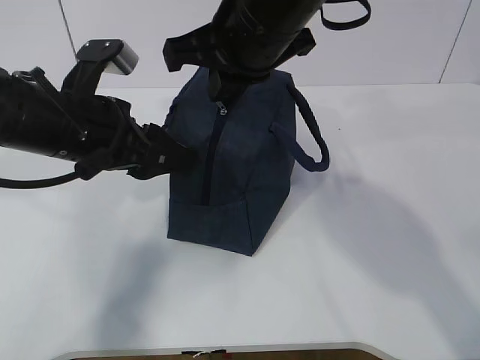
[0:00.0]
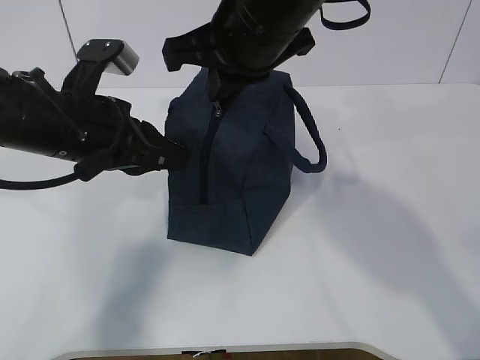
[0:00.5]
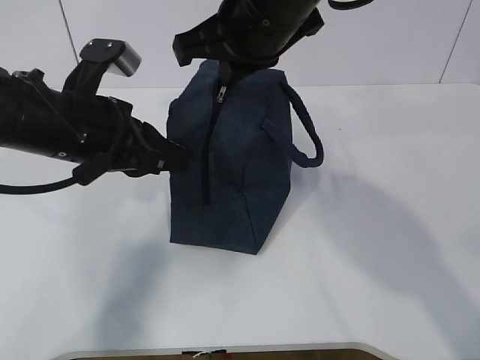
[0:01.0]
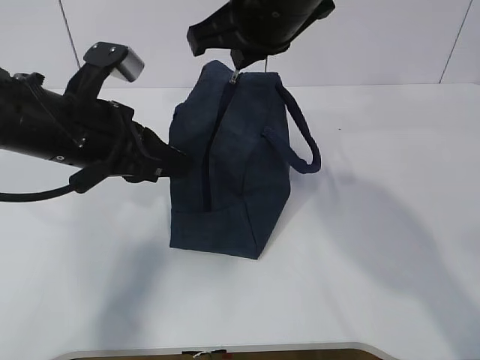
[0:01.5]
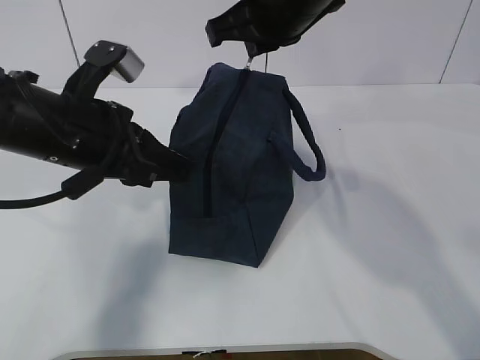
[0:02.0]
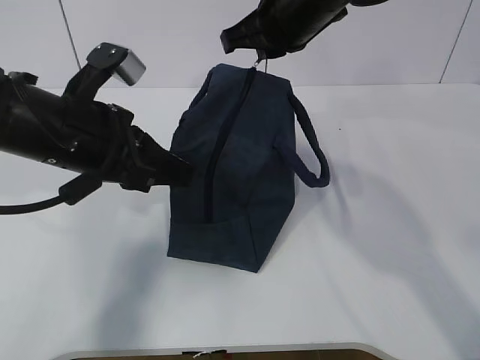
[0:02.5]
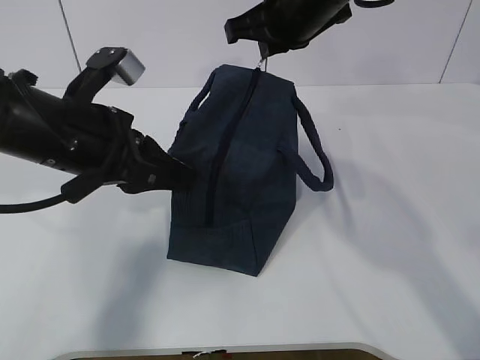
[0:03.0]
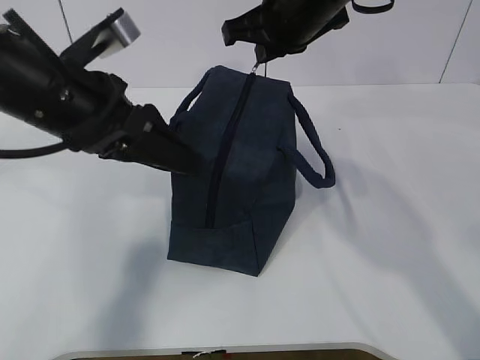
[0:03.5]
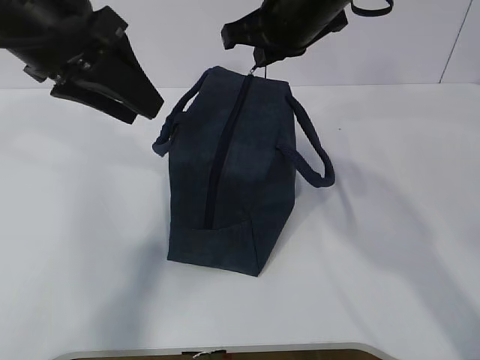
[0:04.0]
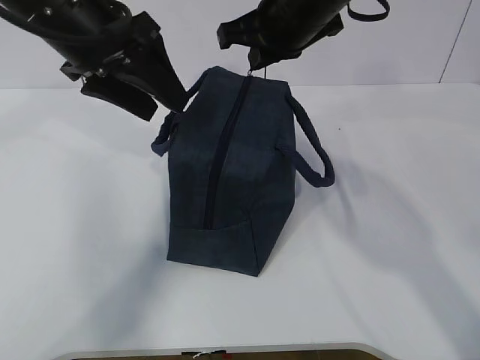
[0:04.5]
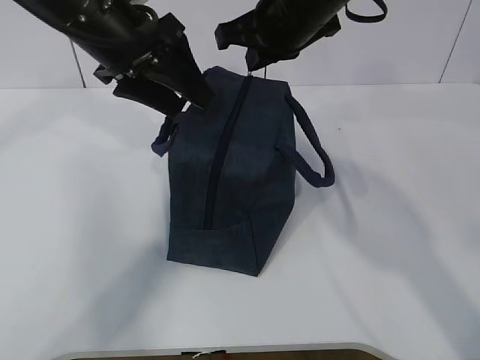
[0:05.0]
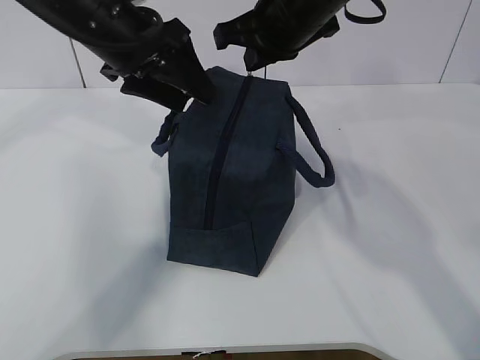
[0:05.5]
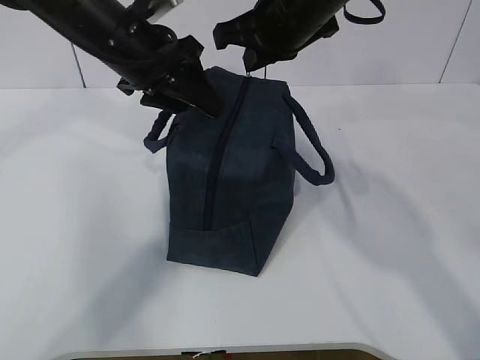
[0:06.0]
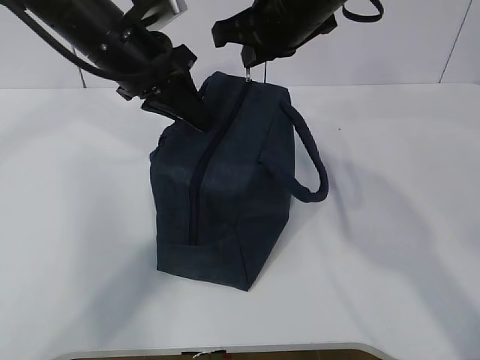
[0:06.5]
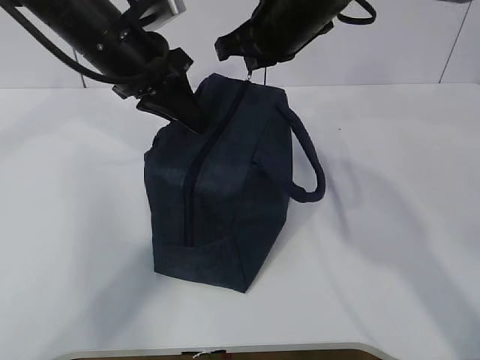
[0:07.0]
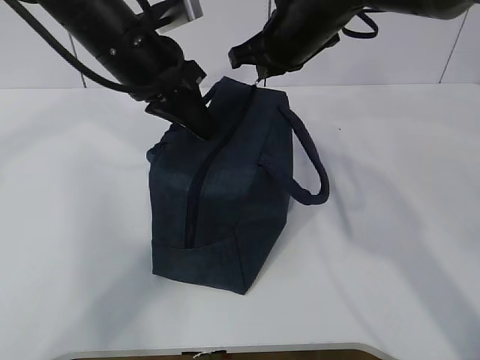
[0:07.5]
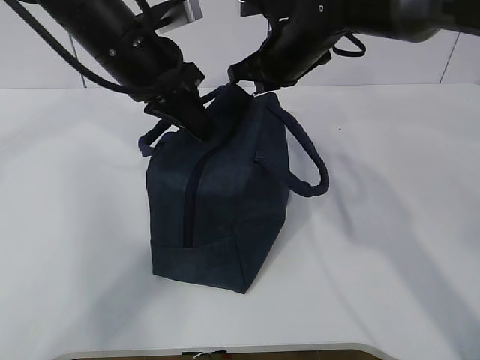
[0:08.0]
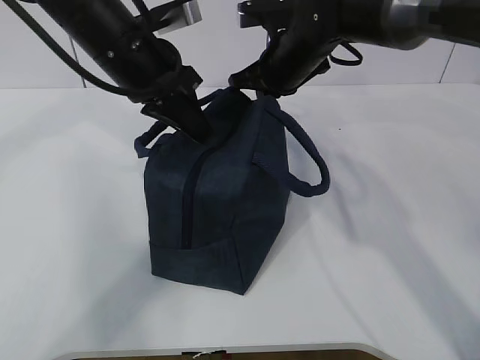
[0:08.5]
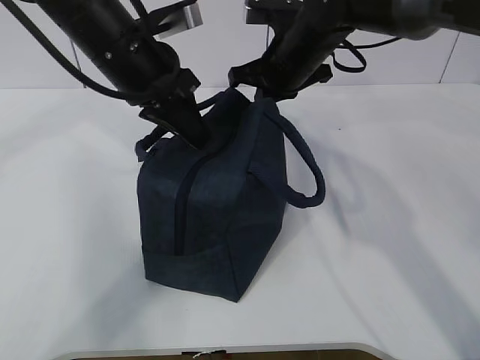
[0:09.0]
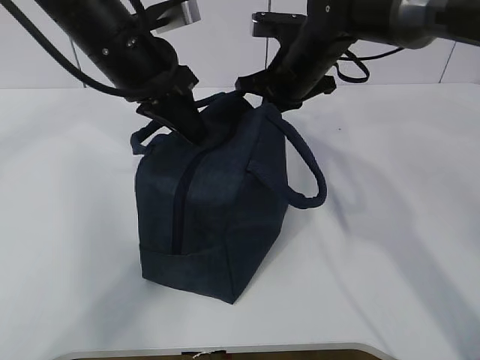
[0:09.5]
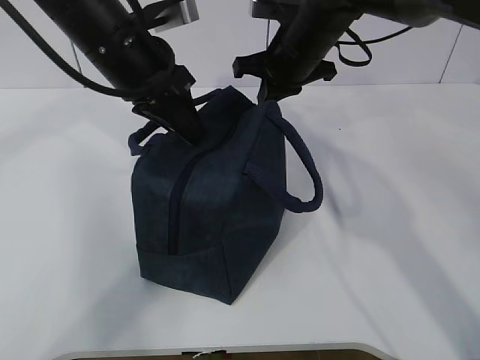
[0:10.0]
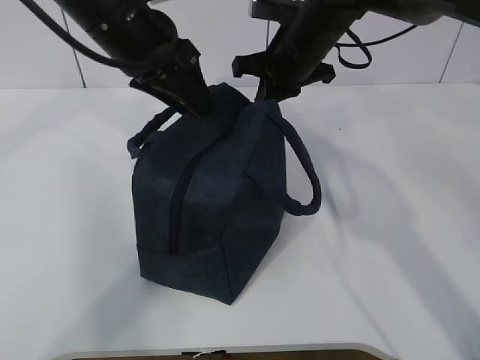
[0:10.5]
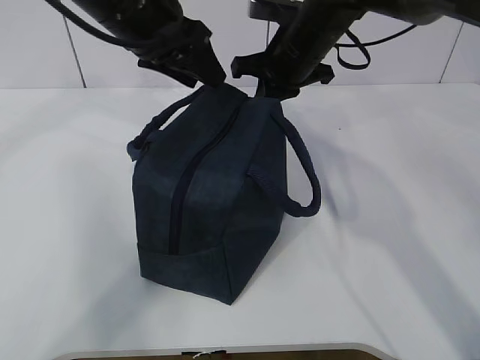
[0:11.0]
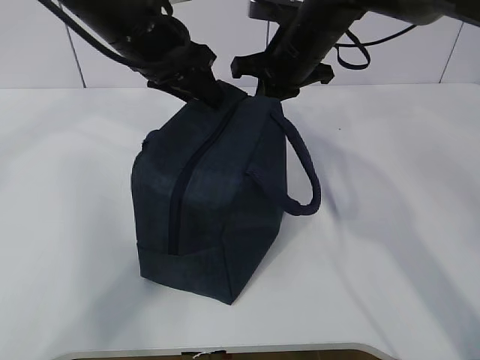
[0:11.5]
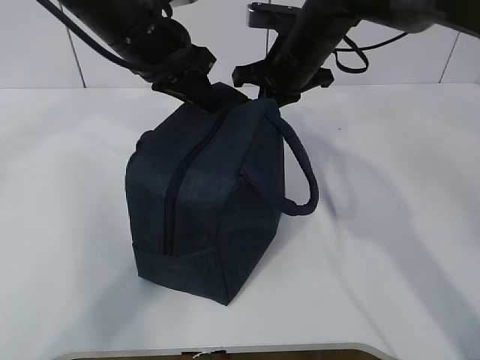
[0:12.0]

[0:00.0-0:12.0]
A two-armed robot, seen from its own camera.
0:00.0 to 0:02.0: The right gripper shifts by roughly 5 cm, while the left gripper closes.
0:02.0 to 0:04.0: The left gripper goes about 10 cm upward, and opens.
0:04.0 to 0:06.0: The left gripper travels forward and downward by roughly 10 cm.
0:06.0 to 0:08.0: The right gripper is displaced downward and forward by about 10 cm. The left gripper closes its fingers.
0:08.0 to 0:10.0: The grippers stay close to where they were, moving slightly.
0:10.0 to 0:12.0: The left gripper opens and closes again.

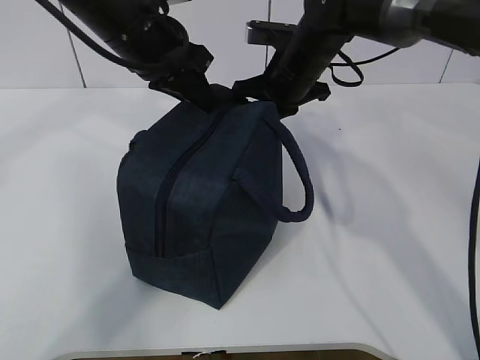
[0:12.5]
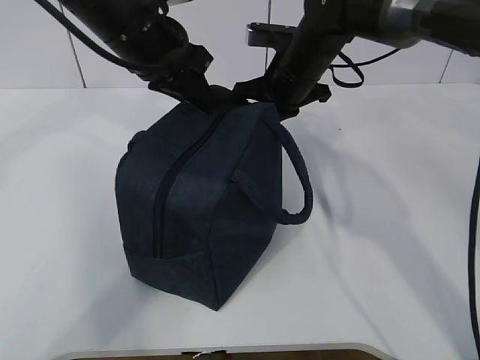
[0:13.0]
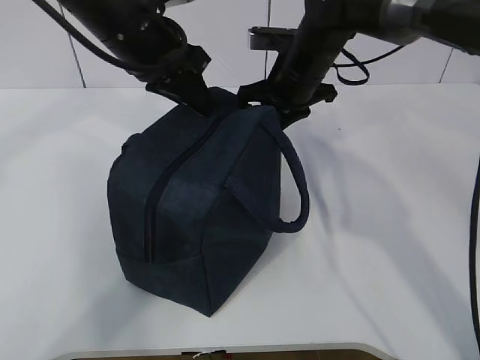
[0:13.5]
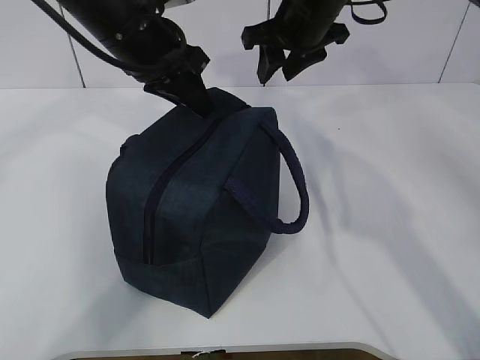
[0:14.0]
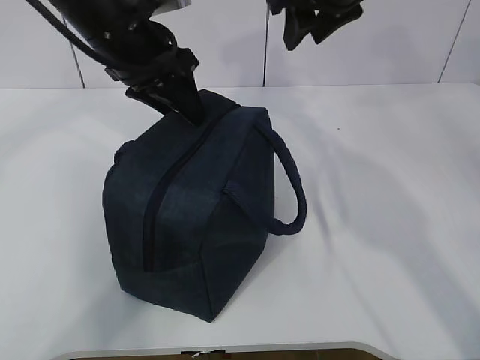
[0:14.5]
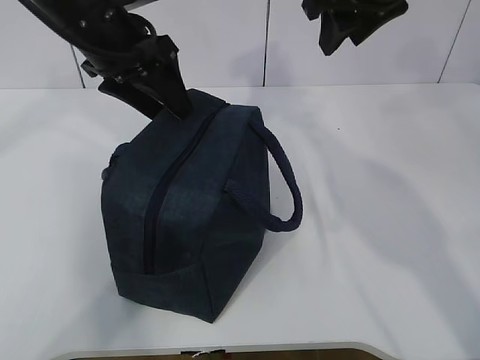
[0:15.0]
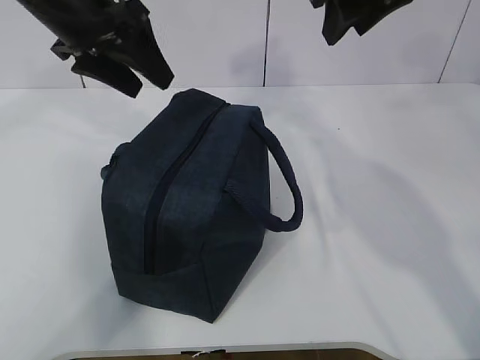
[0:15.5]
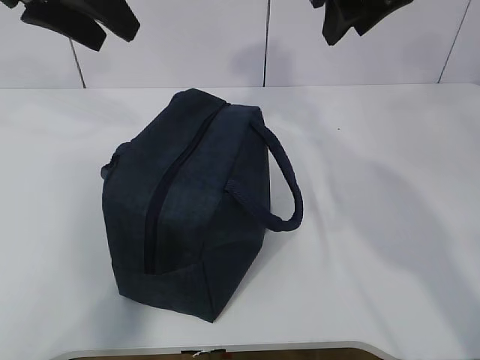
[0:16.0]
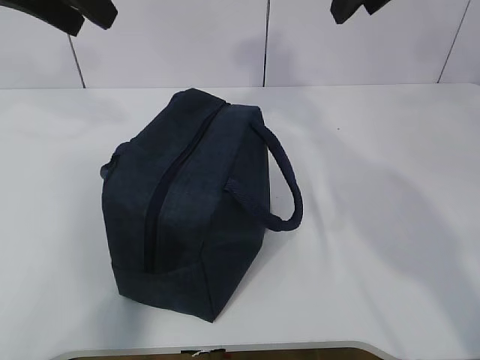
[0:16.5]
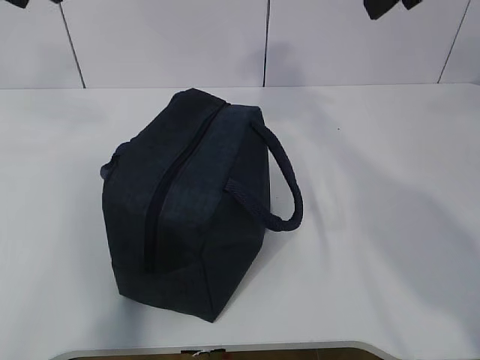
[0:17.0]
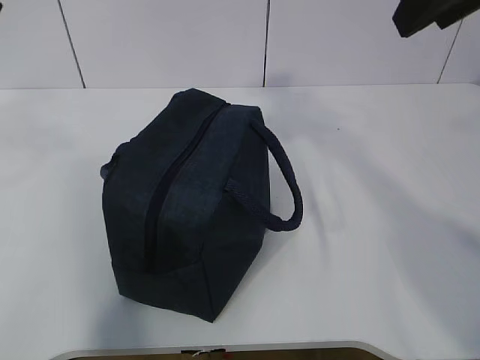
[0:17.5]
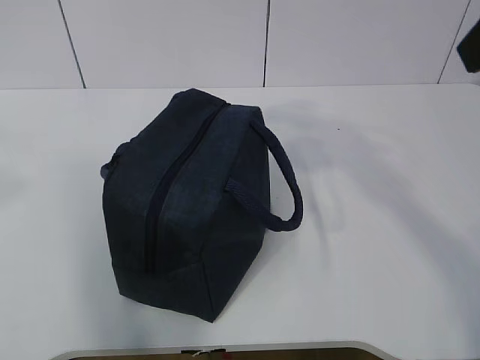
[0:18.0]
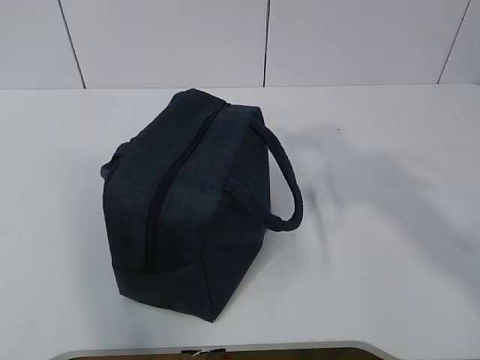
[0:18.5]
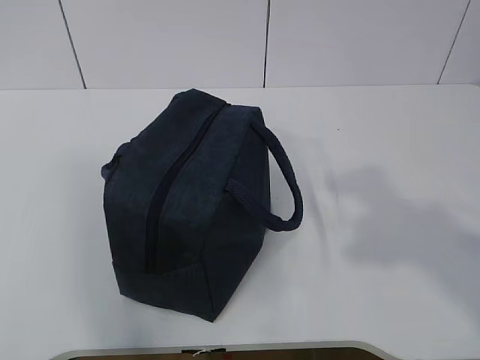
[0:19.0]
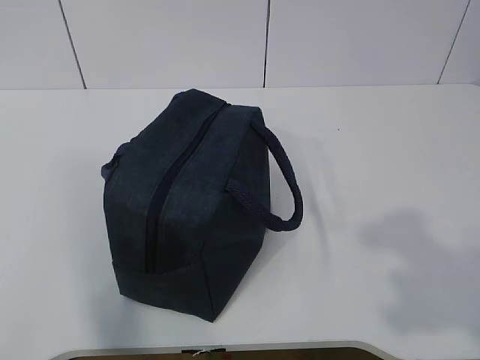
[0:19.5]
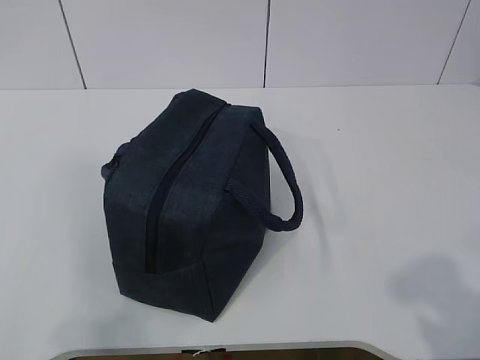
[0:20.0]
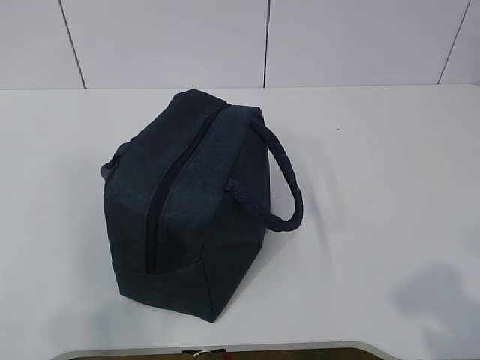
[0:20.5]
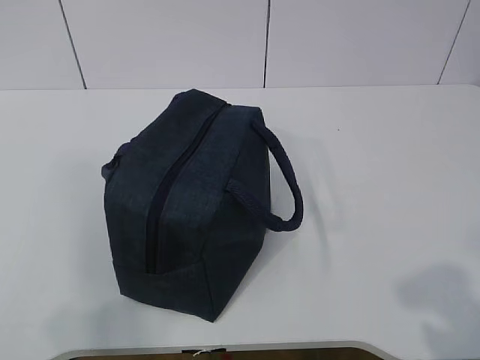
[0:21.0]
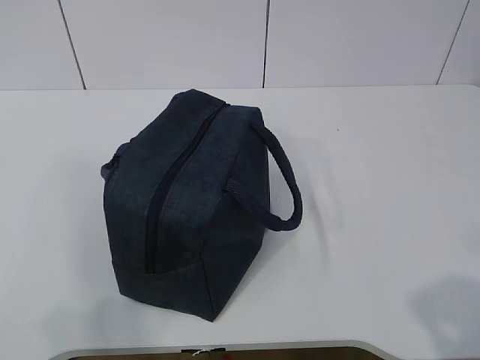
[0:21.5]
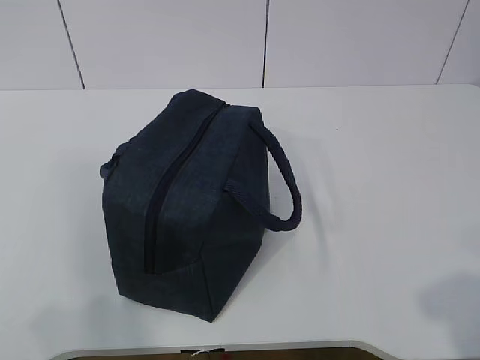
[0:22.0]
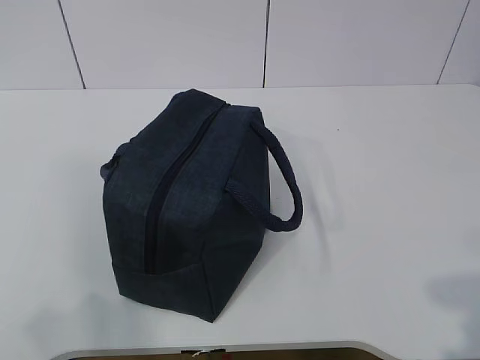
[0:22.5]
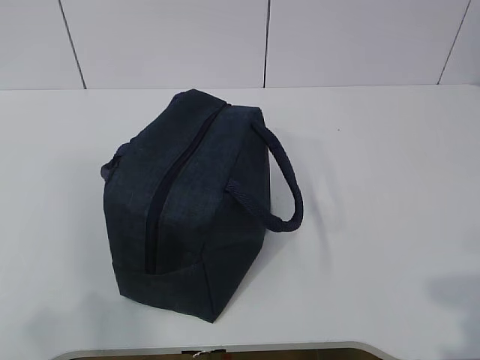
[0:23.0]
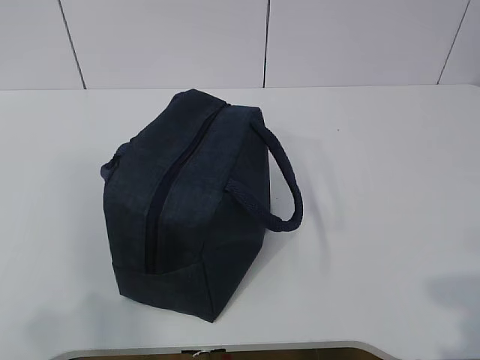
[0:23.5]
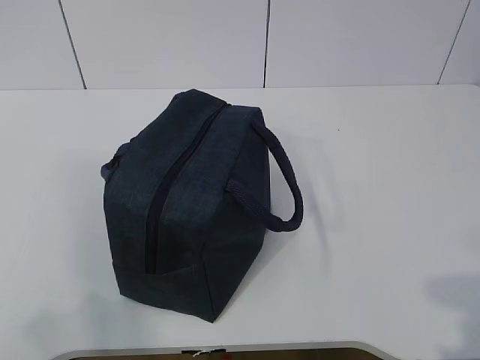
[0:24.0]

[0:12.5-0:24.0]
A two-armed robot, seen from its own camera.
0:12.5 to 0:14.5: The right gripper shifts about 15 cm upward, and opens up. The left gripper opens its fingers.
0:14.5 to 0:16.5: The left gripper shifts approximately 15 cm upward and to the left. Meanwhile the right gripper shifts approximately 5 cm backward.
0:16.5 to 0:18.5: The two grippers go some 25 cm backward.
0:18.5 to 0:20.0: The left gripper goes roughly 15 cm downward and backward, while the right gripper shifts roughly 20 cm backward and downward.
0:20.0 to 0:22.0: The grippers stay close to where they were, moving slightly.
0:22.0 to 0:24.0: The grippers make only small movements.

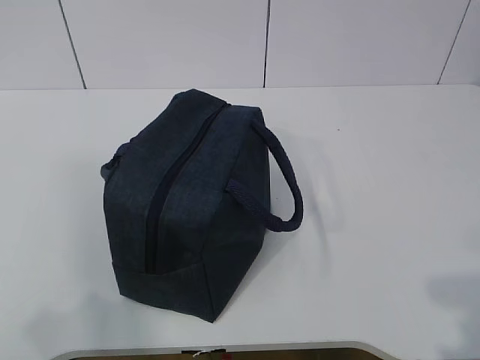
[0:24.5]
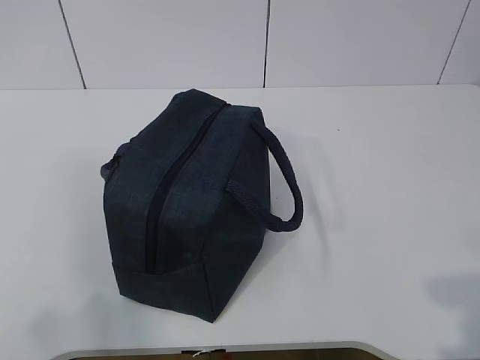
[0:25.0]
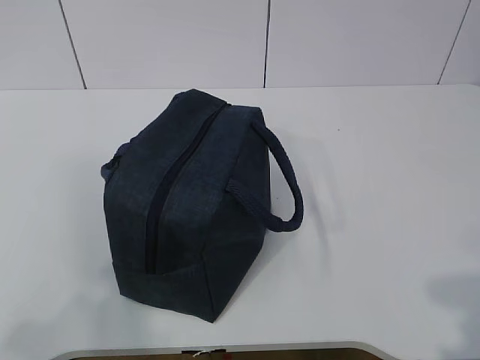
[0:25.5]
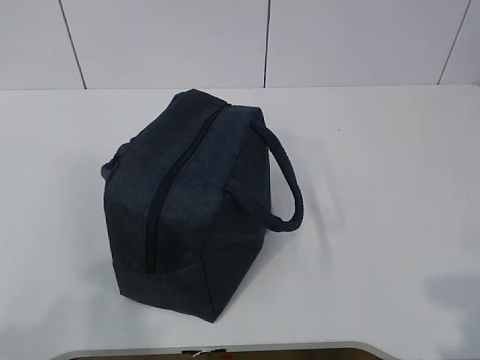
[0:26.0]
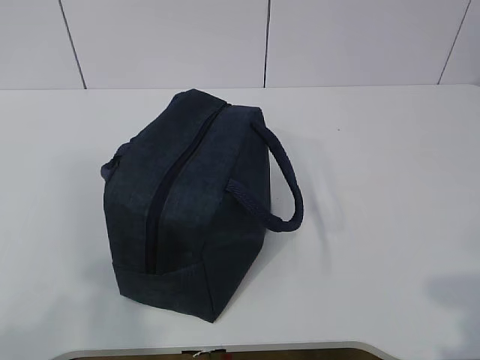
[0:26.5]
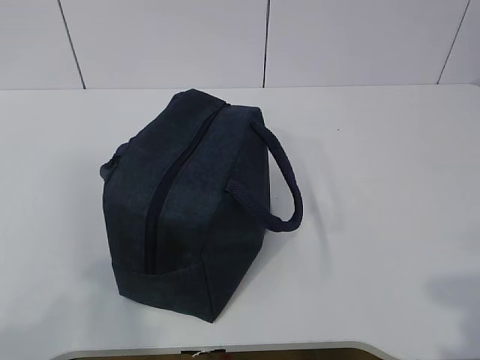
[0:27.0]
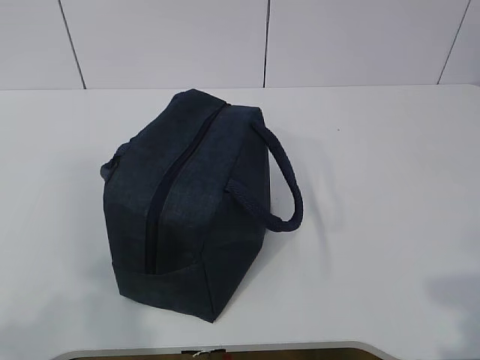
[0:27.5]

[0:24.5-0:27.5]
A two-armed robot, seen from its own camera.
0:26.0 to 0:27.5: Both grippers stay about where they are.
